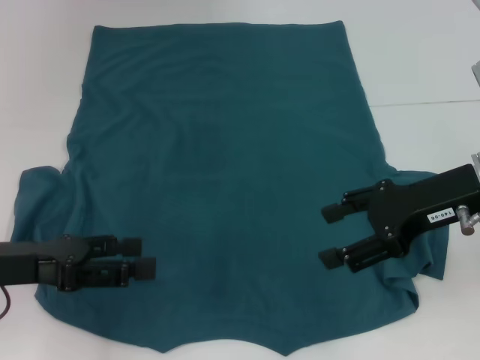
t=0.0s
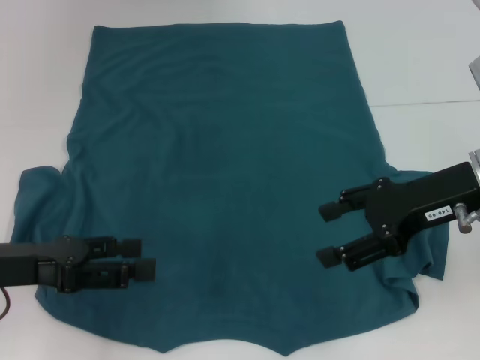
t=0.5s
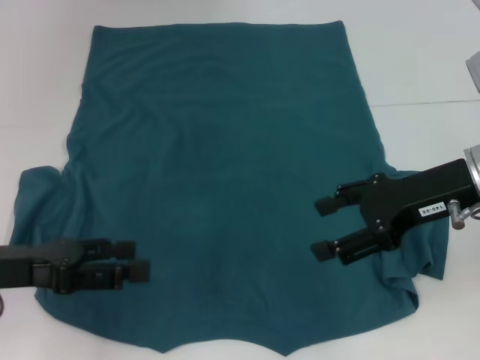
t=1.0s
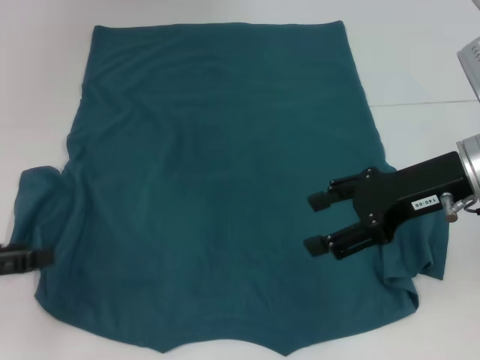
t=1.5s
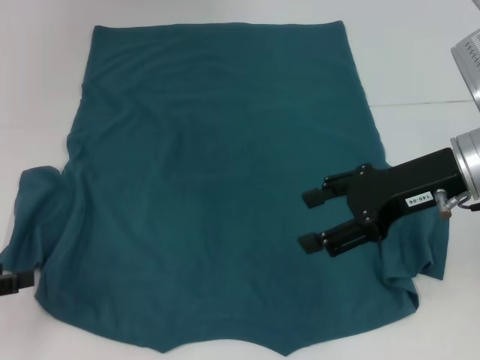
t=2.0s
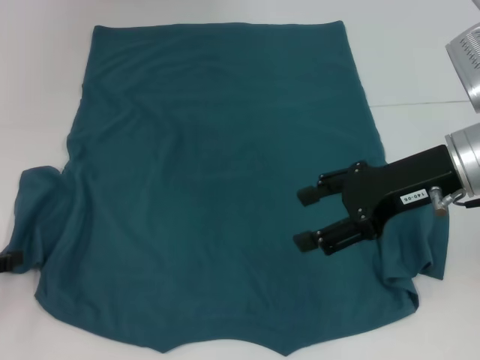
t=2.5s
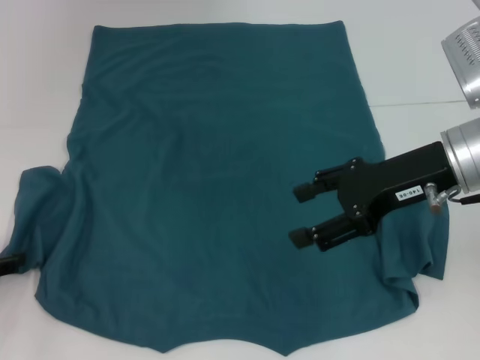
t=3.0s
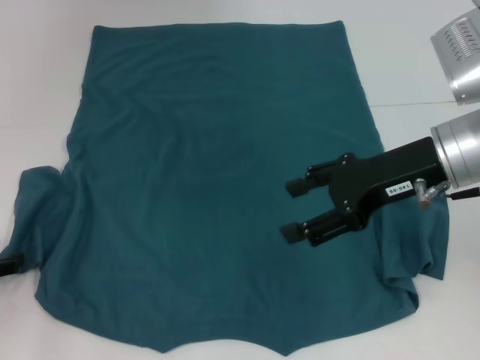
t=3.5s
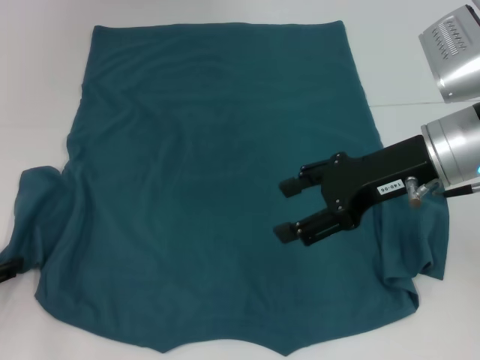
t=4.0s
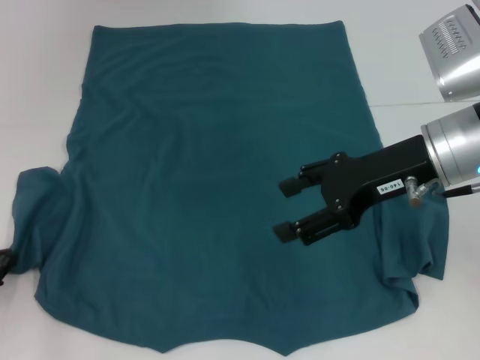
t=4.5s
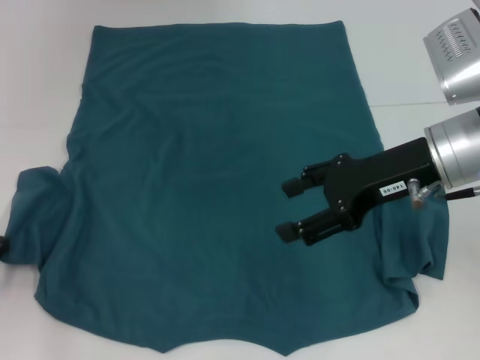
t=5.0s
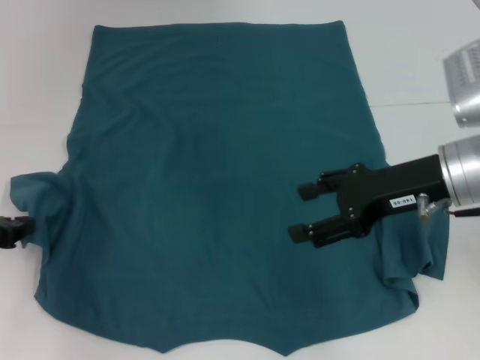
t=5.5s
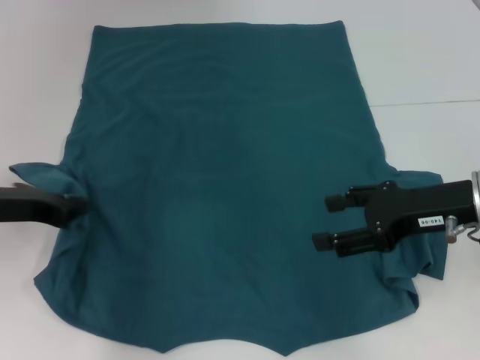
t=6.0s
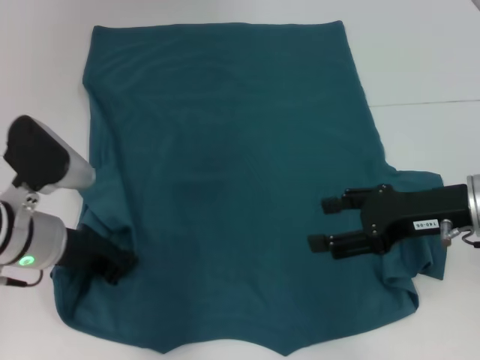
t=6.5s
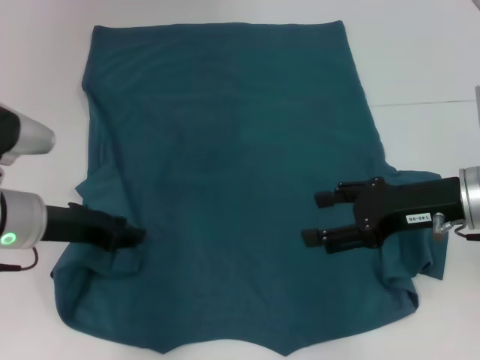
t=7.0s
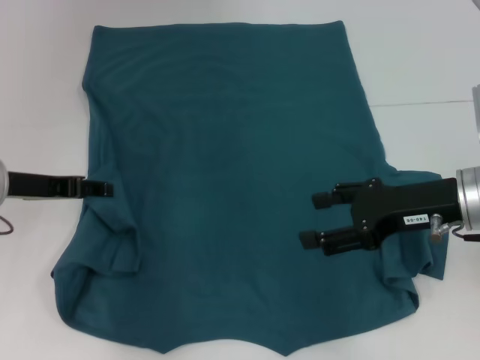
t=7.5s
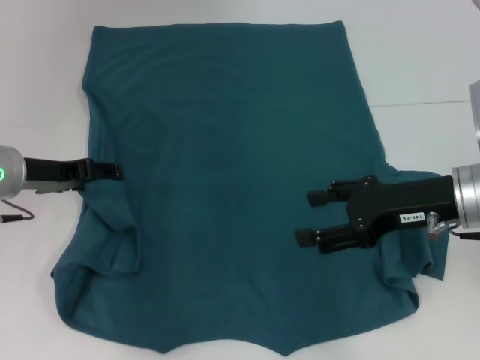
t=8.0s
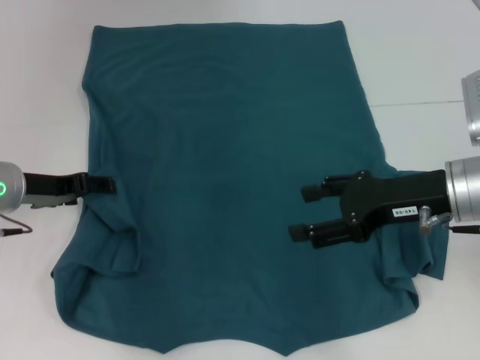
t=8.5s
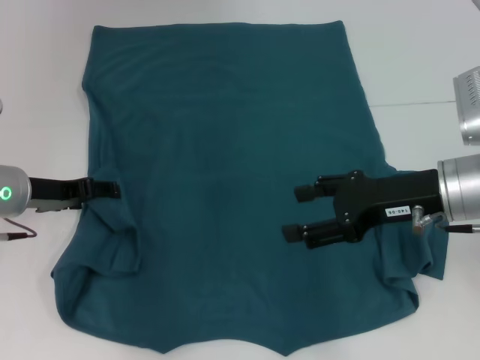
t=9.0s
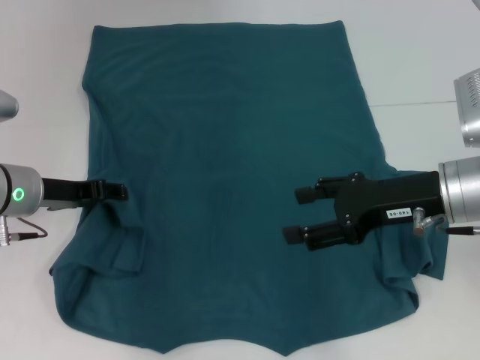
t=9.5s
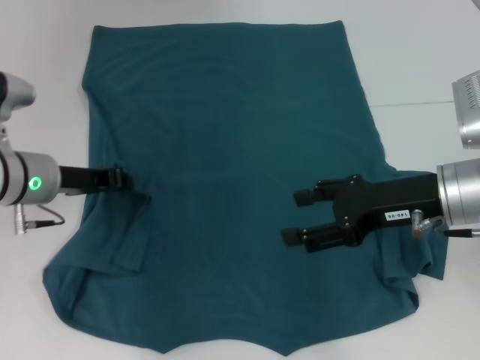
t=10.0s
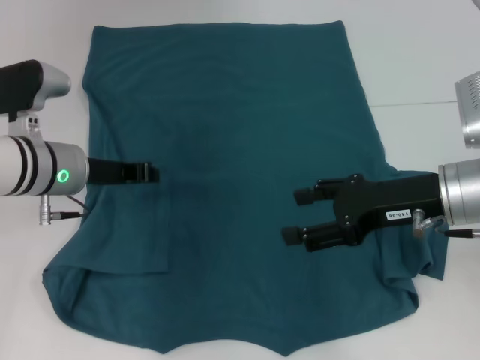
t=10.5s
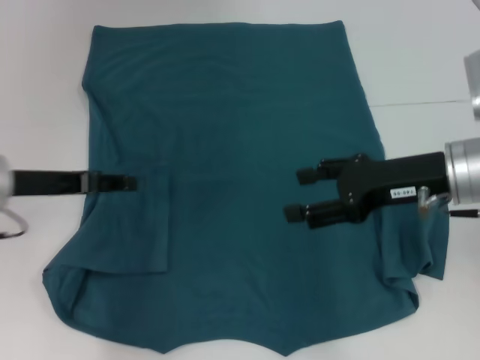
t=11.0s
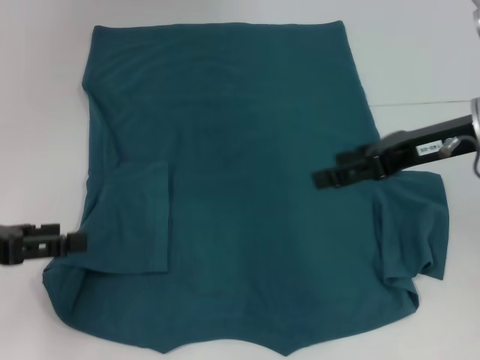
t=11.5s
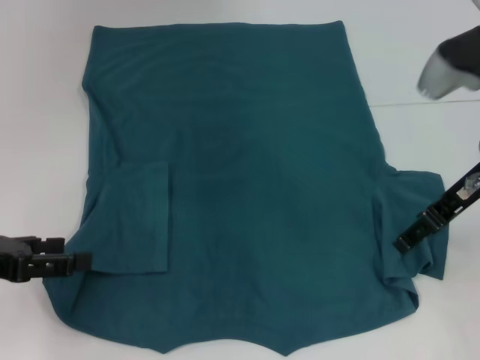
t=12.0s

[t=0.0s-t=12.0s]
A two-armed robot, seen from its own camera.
Step, t=0.0s to t=11.0s: Fold the bottom left sleeve with your left hand.
t=0.0s to t=2.0s: The left gripper travels to the left by about 10 cm.
t=2.0s to t=4.0s: The left gripper ends up approximately 5 cm from where it was.
t=4.0s to t=6.0s: The right gripper shifts by some 10 cm, while the left gripper heads to the right, upward and forward, covering approximately 10 cm, and closes.
t=6.0s to t=8.0s: The left gripper shifts about 5 cm forward, and opens.
t=8.0s to t=10.0s: The left gripper closes.
t=10.0s to t=12.0s: The left gripper is displaced backward and to the left by about 15 cm, and opens its fingers. The right gripper heads upward, covering about 5 cm.

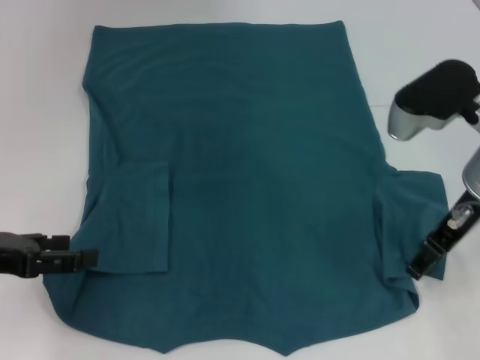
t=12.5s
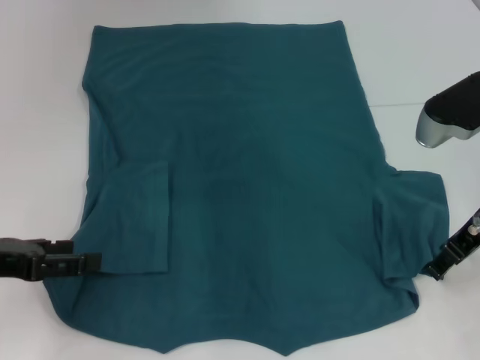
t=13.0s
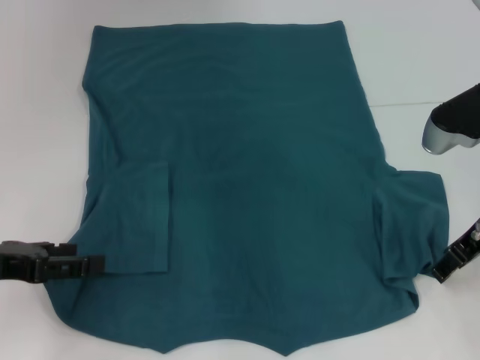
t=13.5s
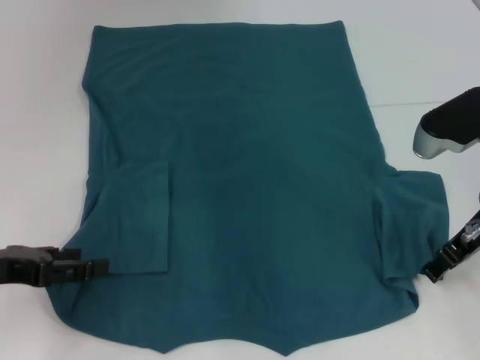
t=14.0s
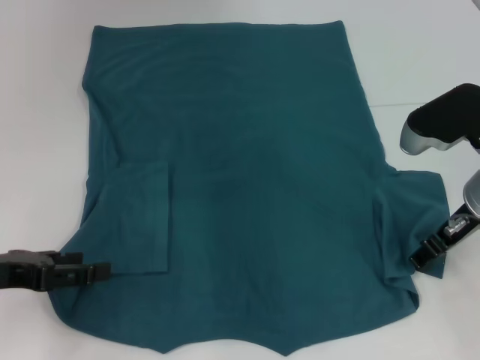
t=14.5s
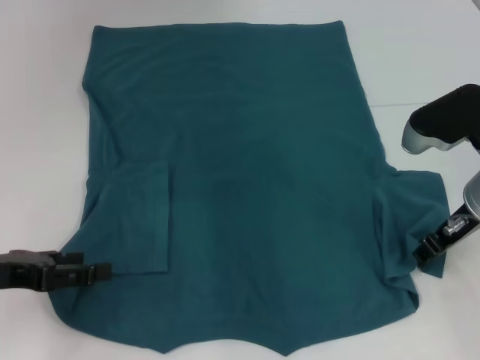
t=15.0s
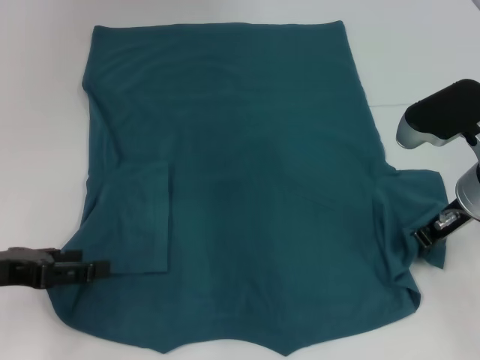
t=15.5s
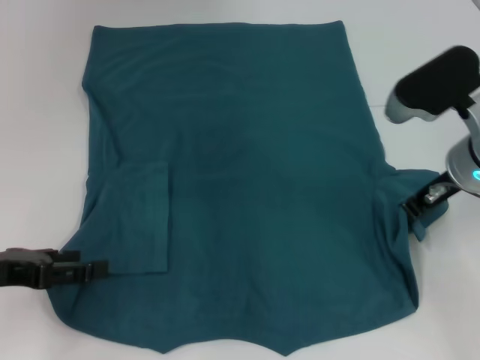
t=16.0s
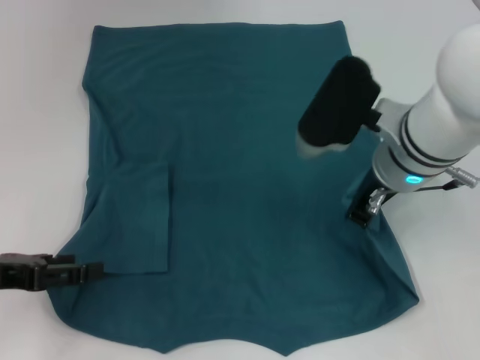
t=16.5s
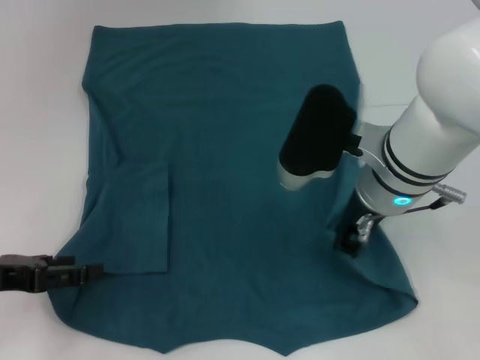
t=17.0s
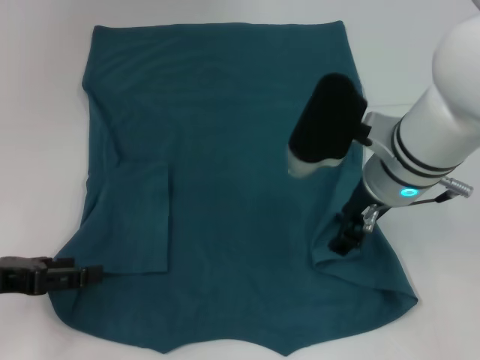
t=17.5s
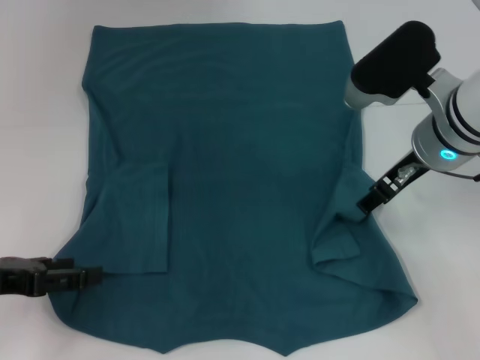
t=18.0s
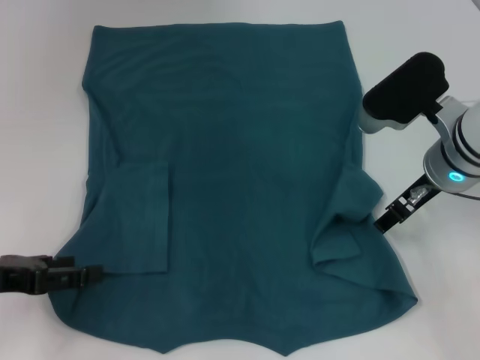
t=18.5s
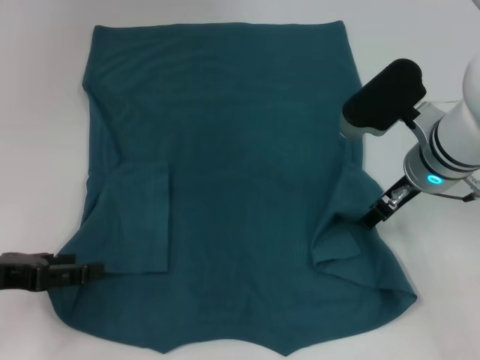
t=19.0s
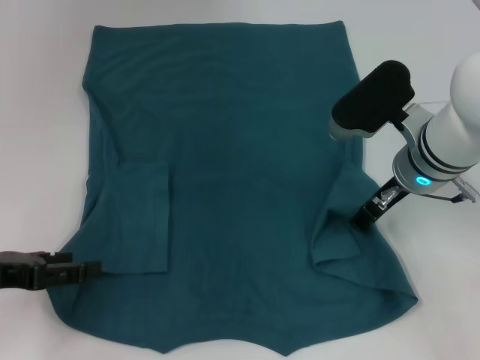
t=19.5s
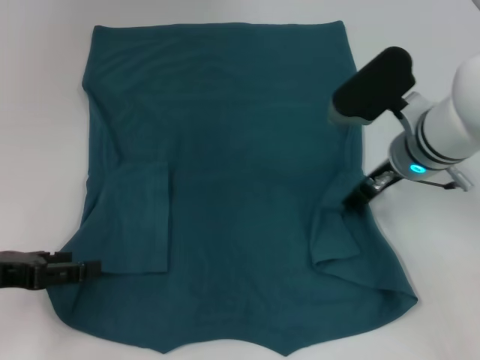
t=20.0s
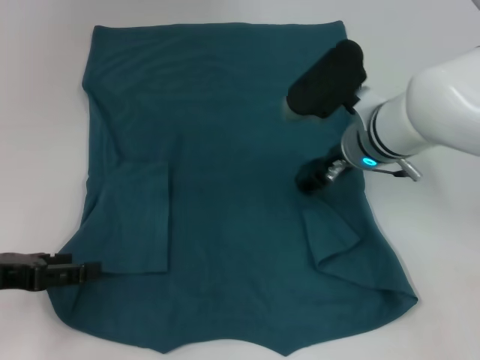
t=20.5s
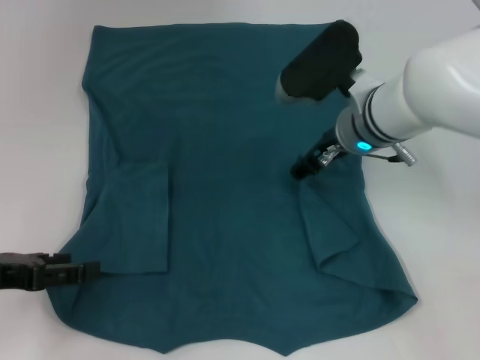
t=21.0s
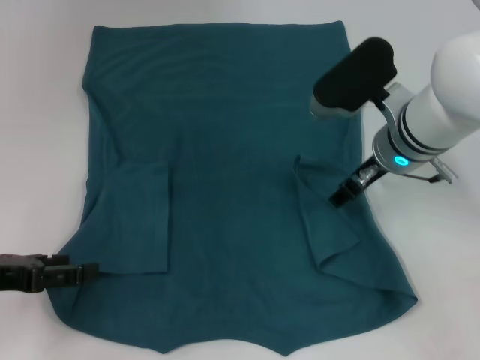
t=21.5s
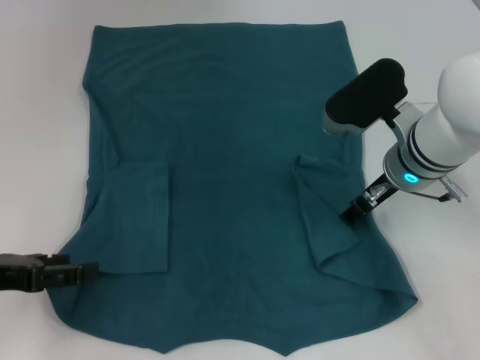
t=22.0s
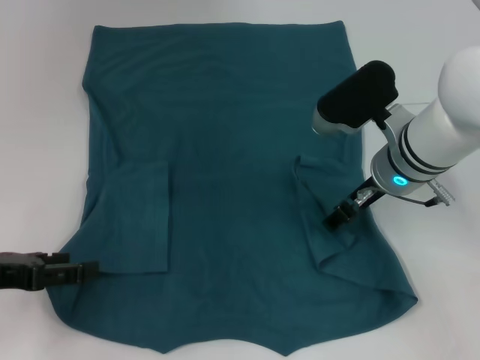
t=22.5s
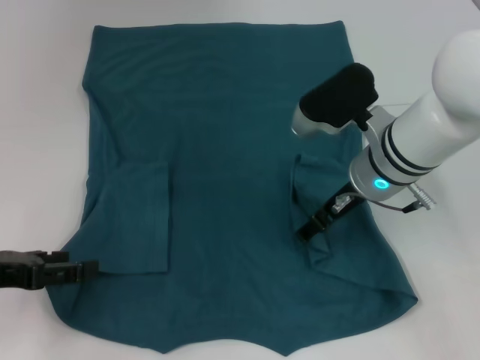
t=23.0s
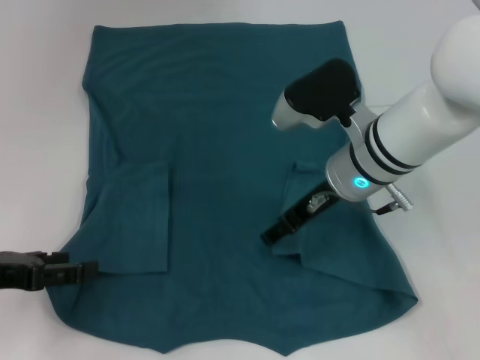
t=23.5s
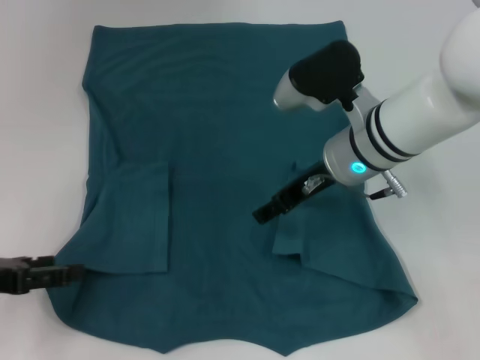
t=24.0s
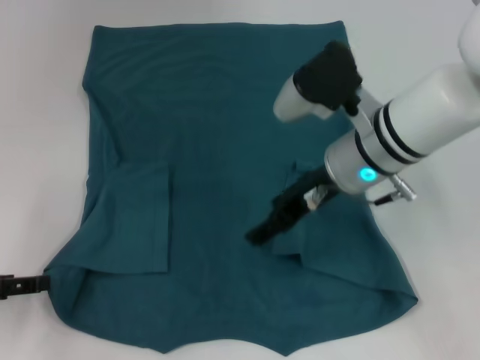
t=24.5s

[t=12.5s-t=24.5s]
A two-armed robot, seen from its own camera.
Step, t=12.5s to t=23.5s: Fold the bottom right sleeve to the right.
t=12.5s to t=14.5s: The right gripper ends up about 5 cm from where it was.
t=14.5s to t=16.5s: The right gripper heads to the left, covering some 10 cm, and closes.
t=16.5s to t=18.5s: The right gripper goes some 5 cm to the right, and opens up.
t=18.5s to t=20.5s: The right gripper heads to the left, covering about 5 cm.
t=20.5s to t=22.5s: There are only small adjustments of the grippers.

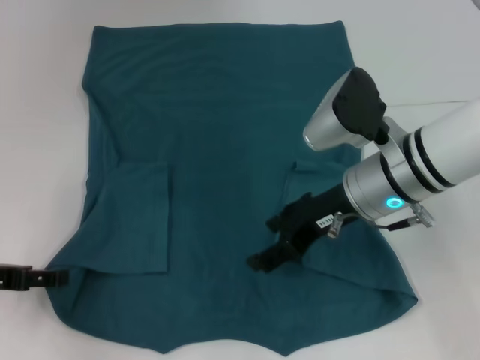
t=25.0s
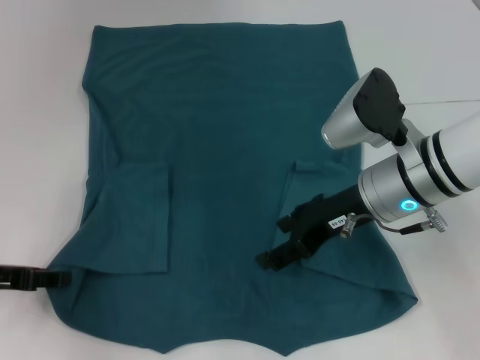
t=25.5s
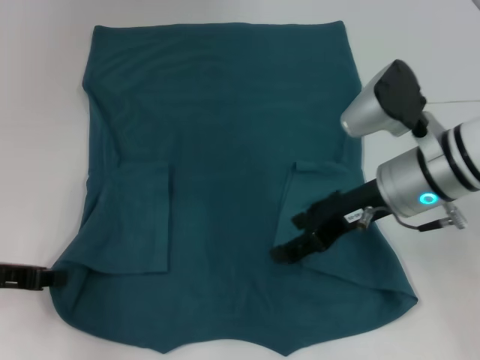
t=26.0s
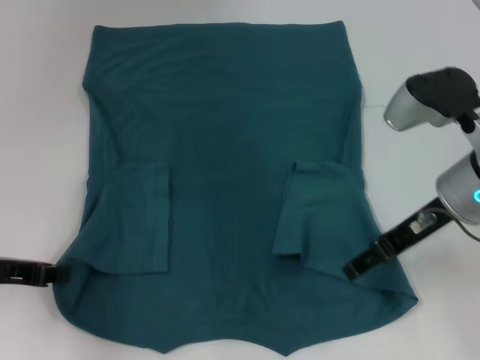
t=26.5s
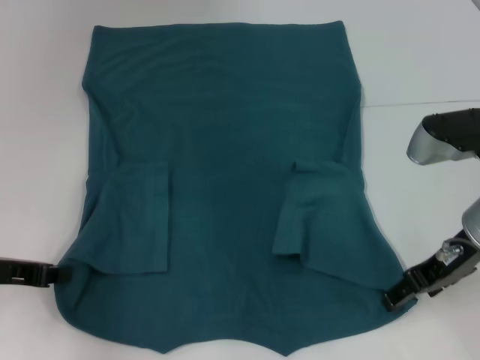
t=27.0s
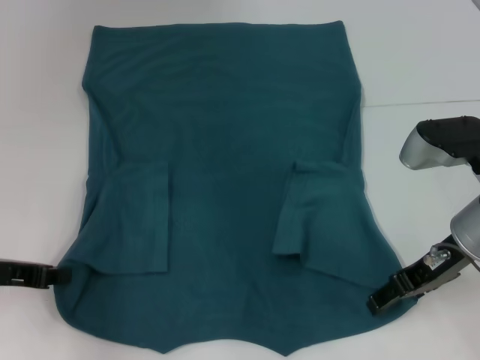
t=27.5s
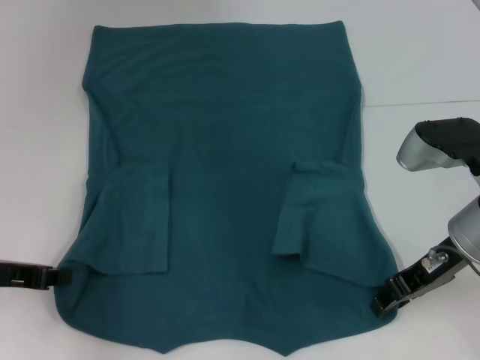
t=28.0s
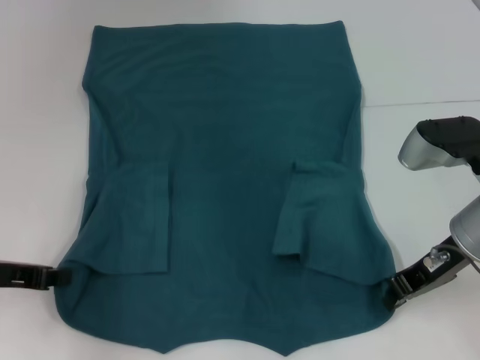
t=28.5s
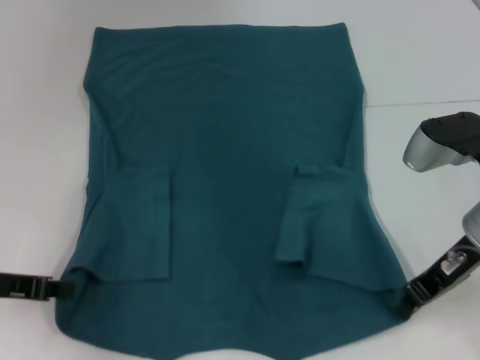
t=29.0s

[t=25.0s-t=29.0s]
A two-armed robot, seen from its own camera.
Step, t=25.0s to t=26.5s: Grab the bottom left corner with your left hand.
Step, t=27.0s to t=29.0s: Grab the bottom right corner with your right hand.
t=25.0s to t=27.0s: The right gripper goes roughly 10 cm to the right, while the left gripper closes up.
t=27.0s to t=29.0s: The right gripper closes.
